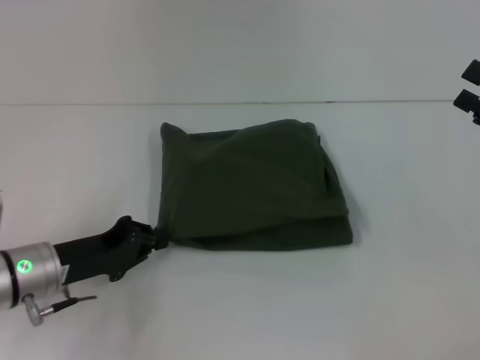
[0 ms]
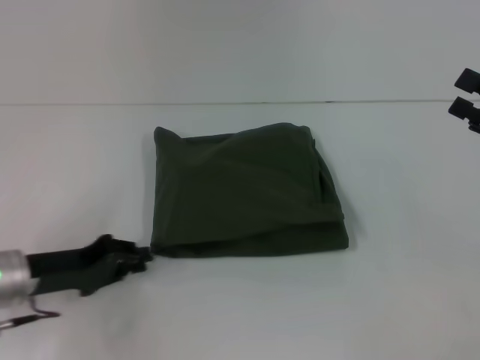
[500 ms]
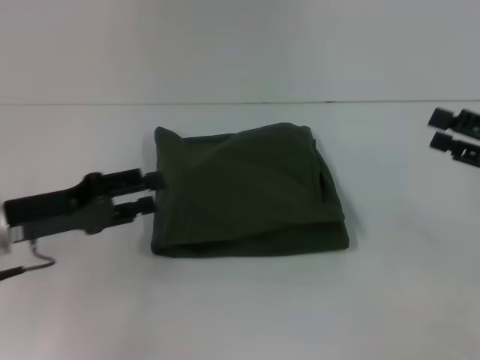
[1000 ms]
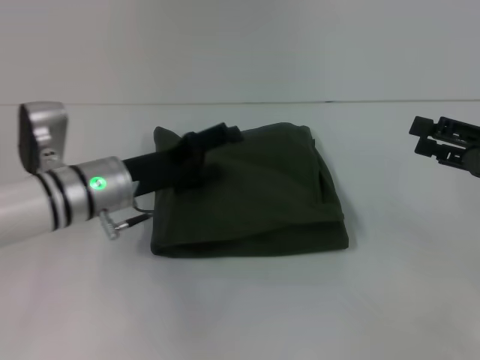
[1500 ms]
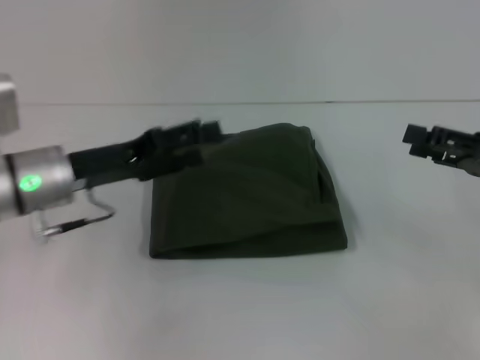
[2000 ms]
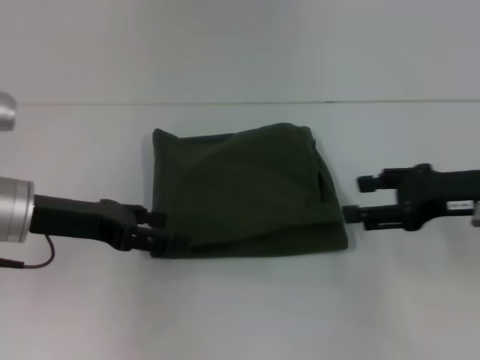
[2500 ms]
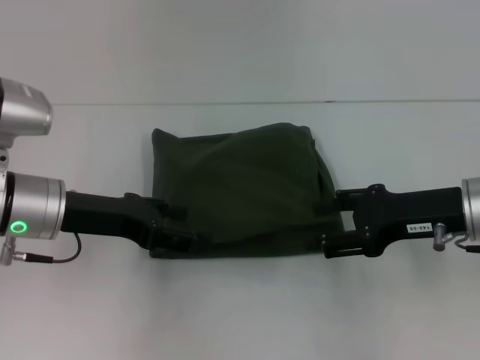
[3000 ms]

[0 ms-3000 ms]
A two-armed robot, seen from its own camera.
0 ms to 1500 ms: The left gripper travels forward and to the right by about 10 cm, and opens.
1500 ms to 3000 ms: The right gripper is displaced to the left by about 10 cm. Meanwhile the left gripper shifts by about 5 cm.

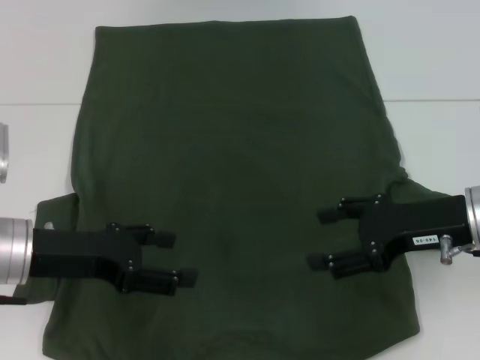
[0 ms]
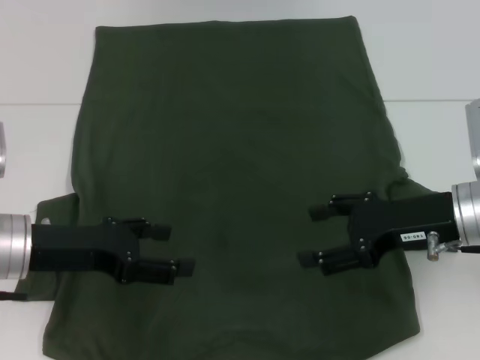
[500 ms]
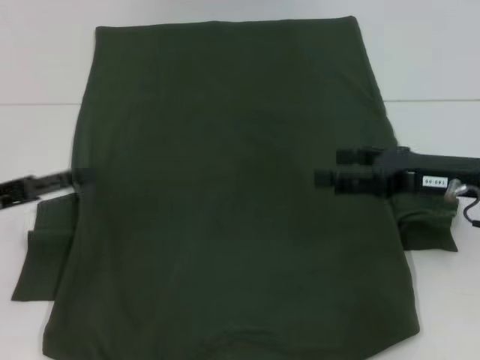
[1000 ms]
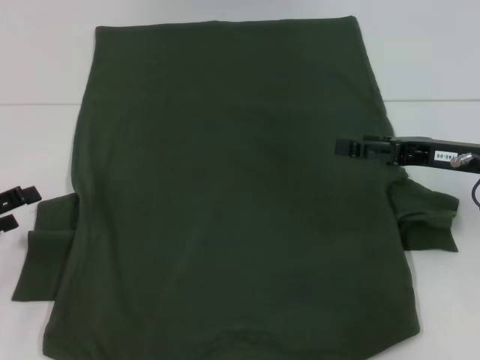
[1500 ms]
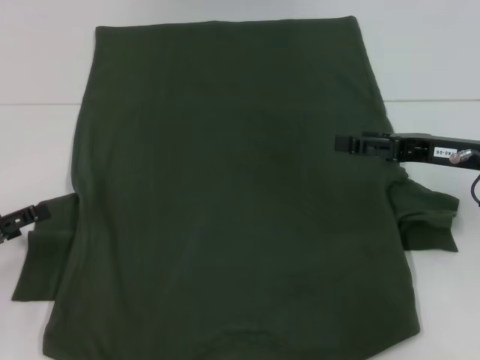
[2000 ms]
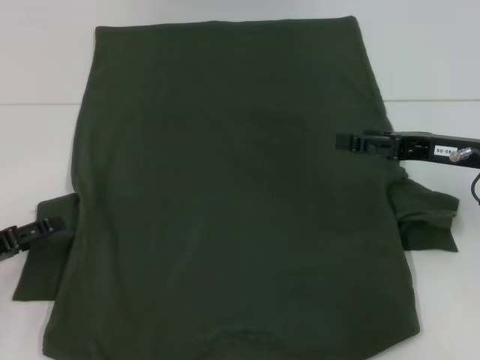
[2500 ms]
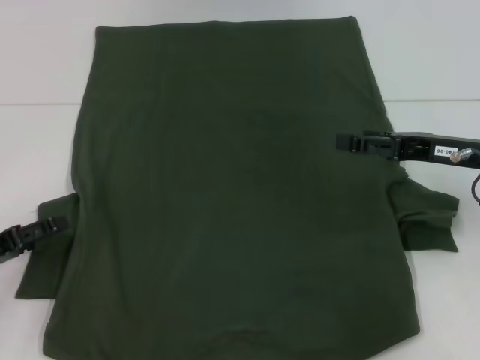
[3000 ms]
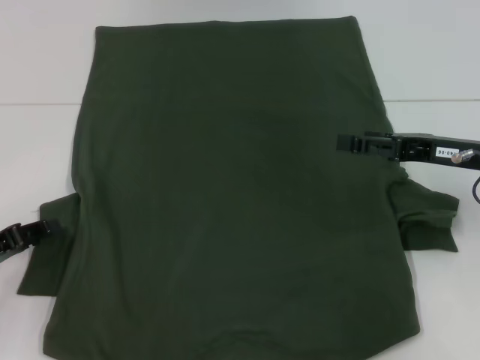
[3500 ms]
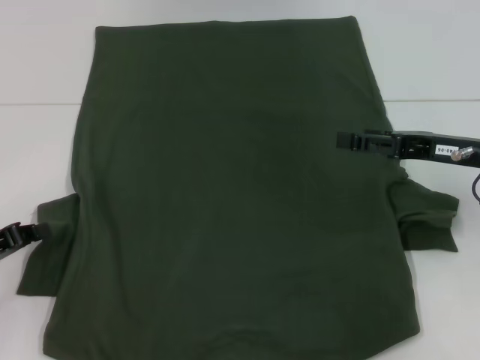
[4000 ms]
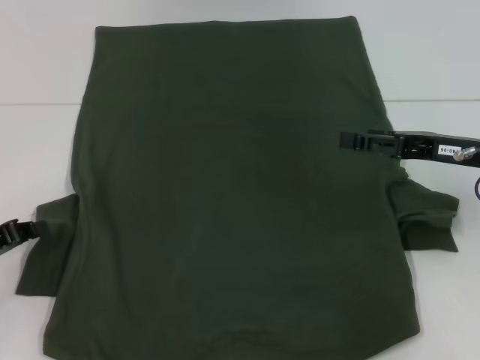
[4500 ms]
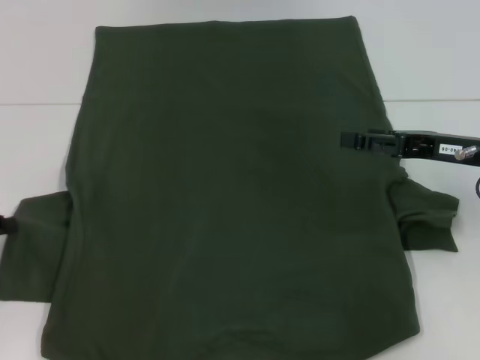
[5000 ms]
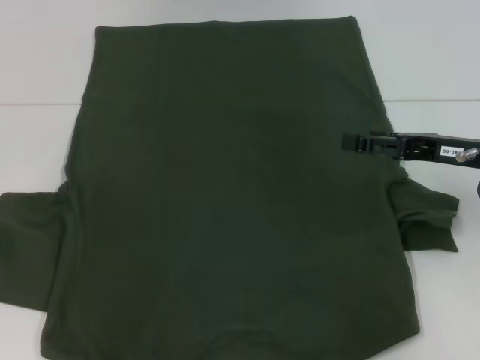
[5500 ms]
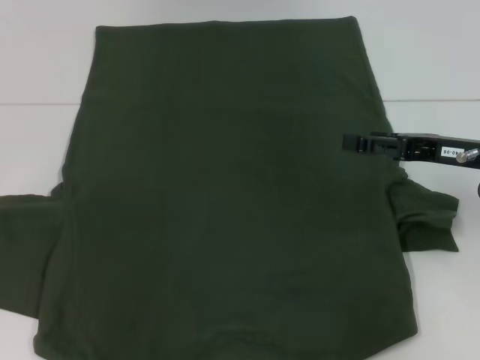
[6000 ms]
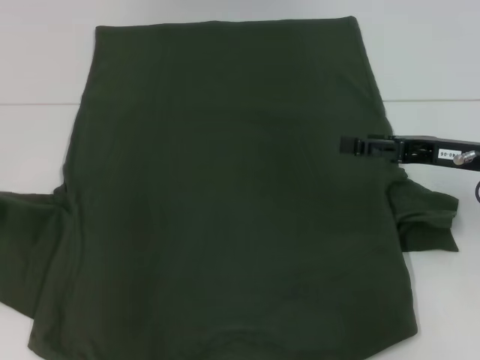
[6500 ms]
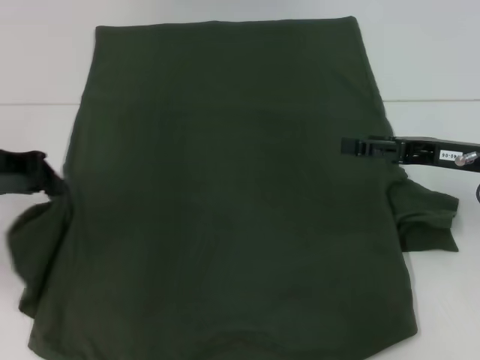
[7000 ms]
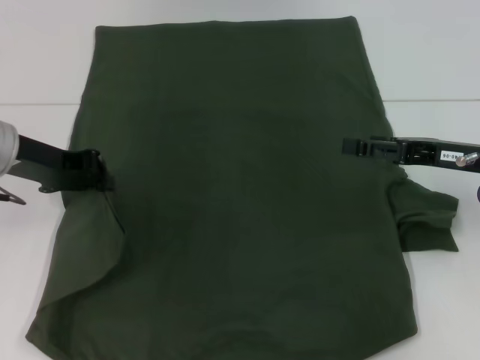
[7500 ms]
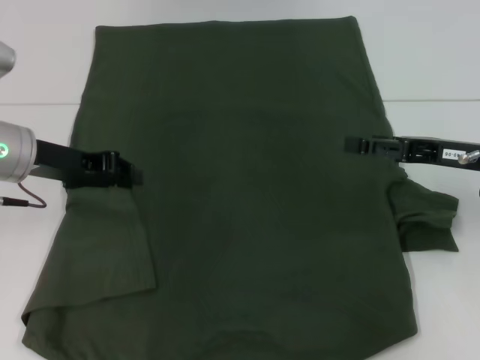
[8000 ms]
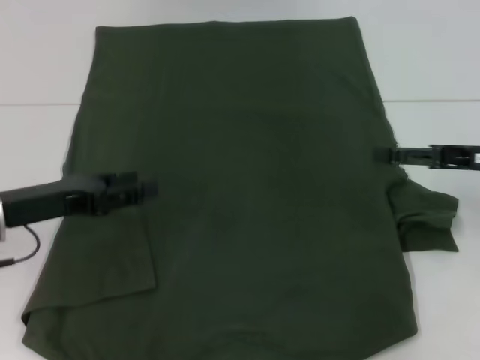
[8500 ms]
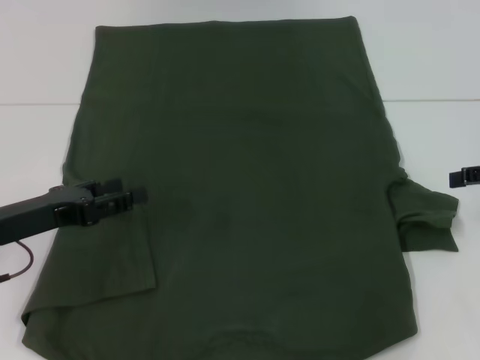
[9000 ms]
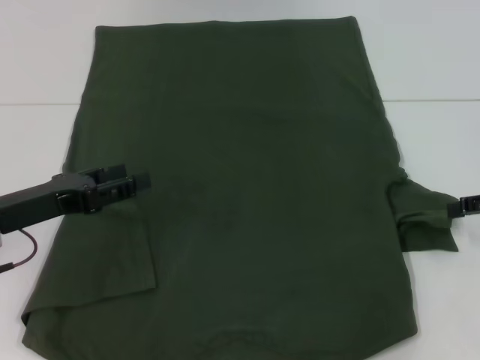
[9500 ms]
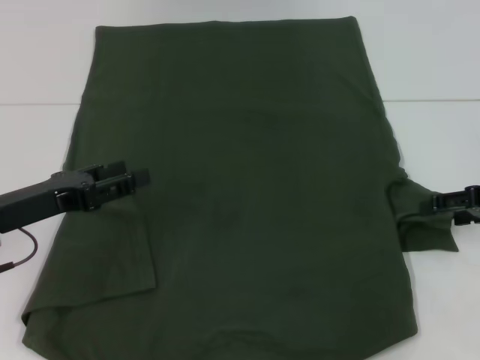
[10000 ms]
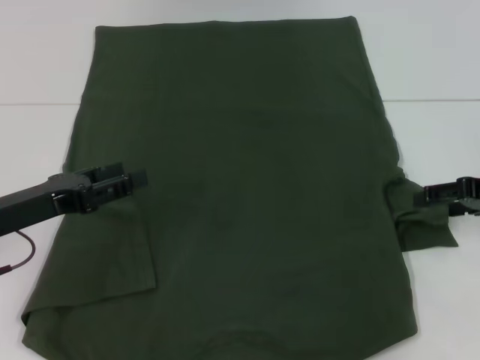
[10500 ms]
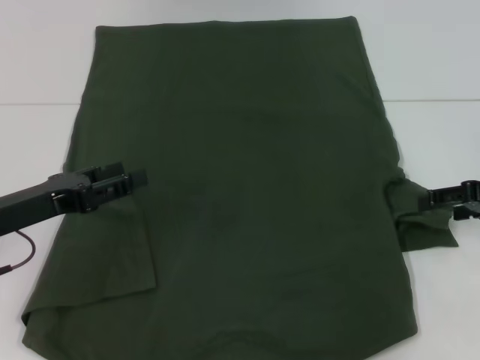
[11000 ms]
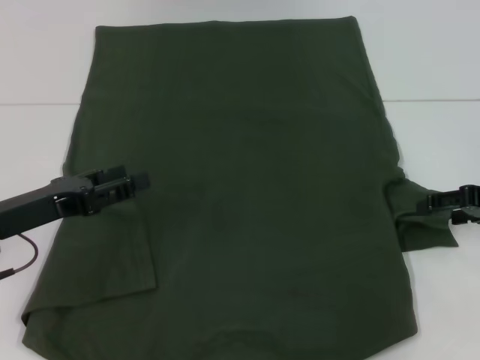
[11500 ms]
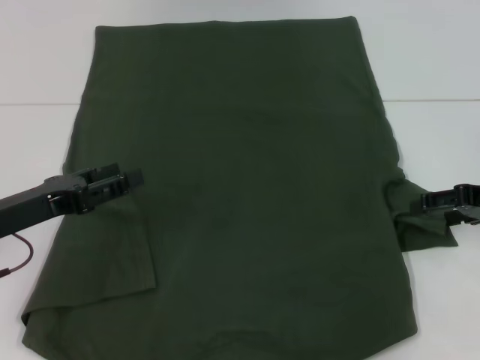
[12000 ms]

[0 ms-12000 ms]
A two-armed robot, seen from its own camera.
Step, 0 ms to 7500 ms: Fold the bottom left sleeve with your left hand.
0 ms to 2000 ms: The left gripper heads to the left and downward, covering some 15 cm.
2000 ms to 4000 ms: The left gripper closes.
4000 ms to 6000 ms: The left gripper heads upward, to the left and forward, covering approximately 10 cm.
6000 ms to 8000 ms: The left gripper is displaced to the right and forward by some 15 cm.
8000 ms to 10000 ms: The left gripper shifts approximately 10 cm backward, and opens, while the right gripper travels to the right by some 5 cm.
10000 ms to 12000 ms: There are only small adjustments of the grippers.

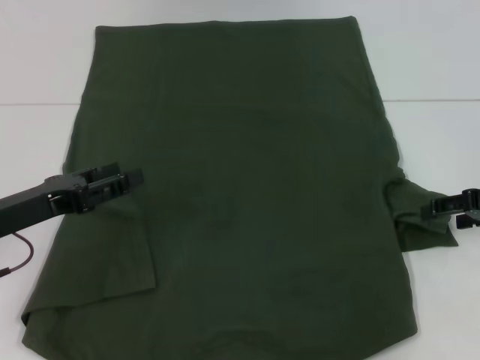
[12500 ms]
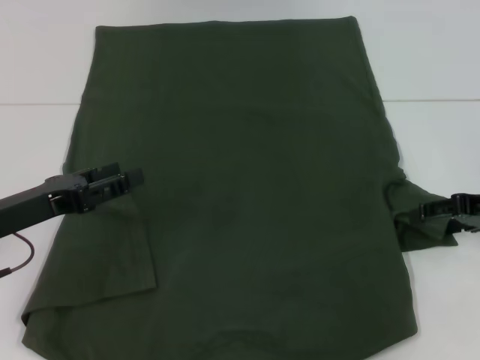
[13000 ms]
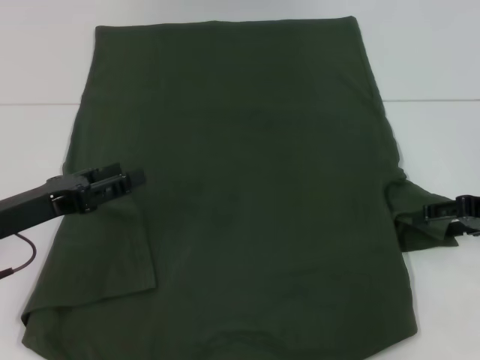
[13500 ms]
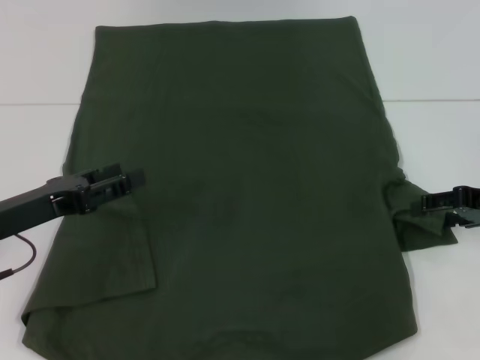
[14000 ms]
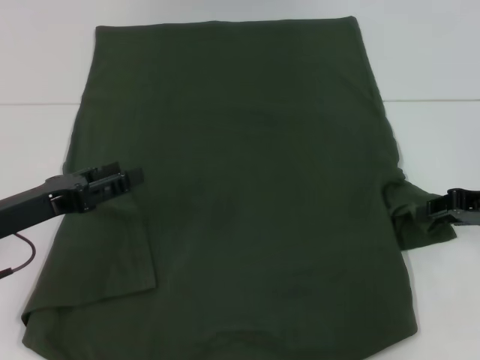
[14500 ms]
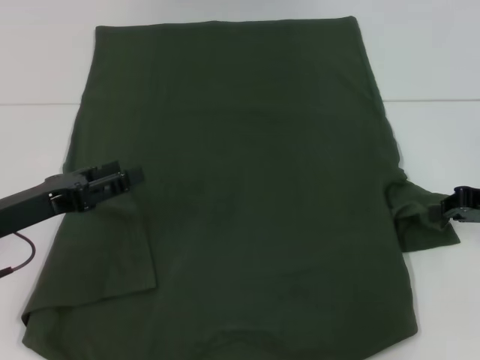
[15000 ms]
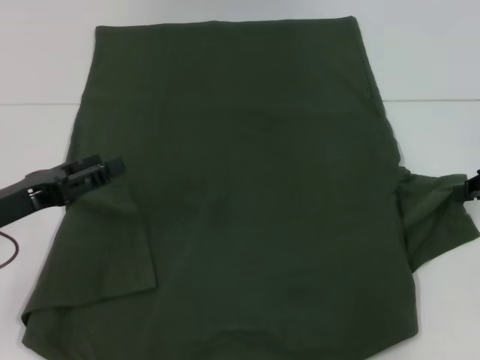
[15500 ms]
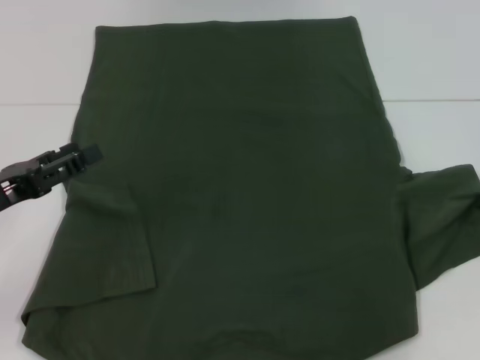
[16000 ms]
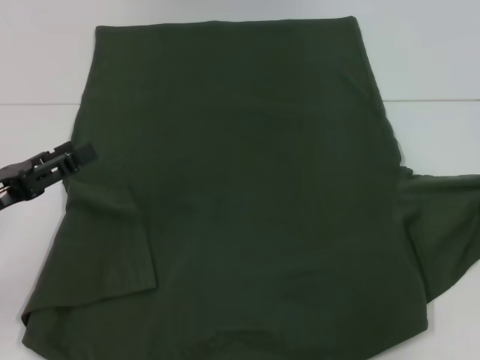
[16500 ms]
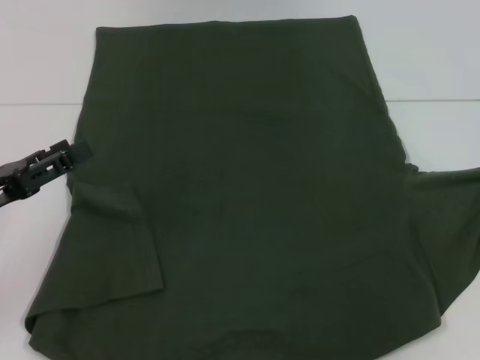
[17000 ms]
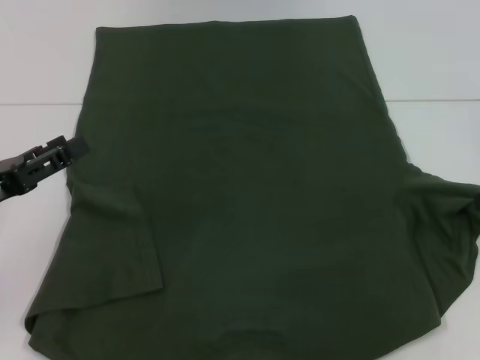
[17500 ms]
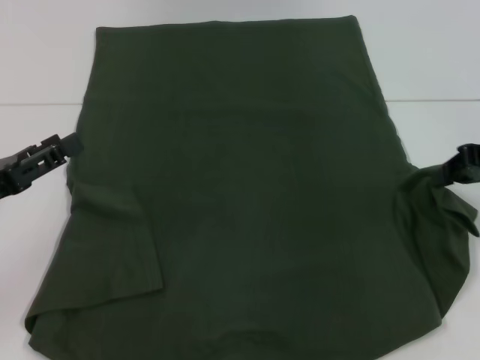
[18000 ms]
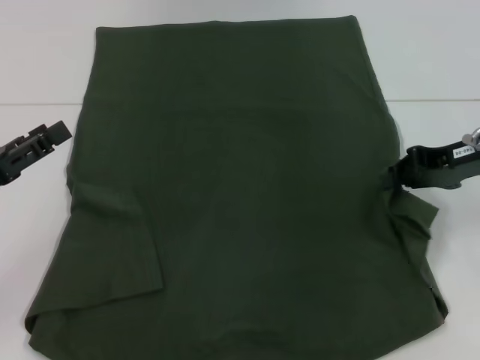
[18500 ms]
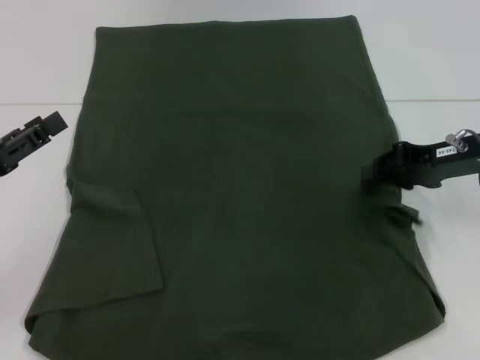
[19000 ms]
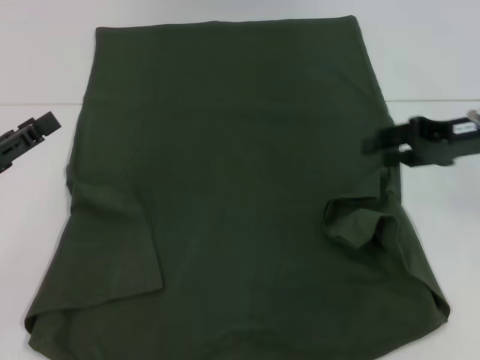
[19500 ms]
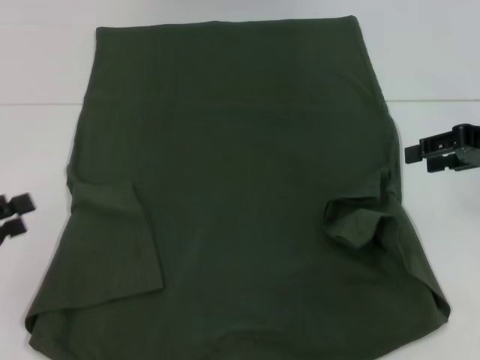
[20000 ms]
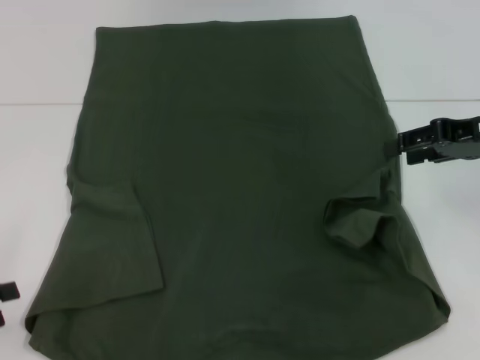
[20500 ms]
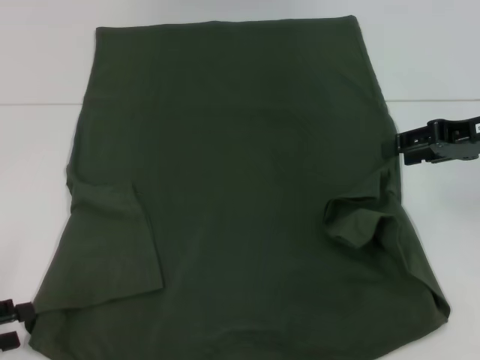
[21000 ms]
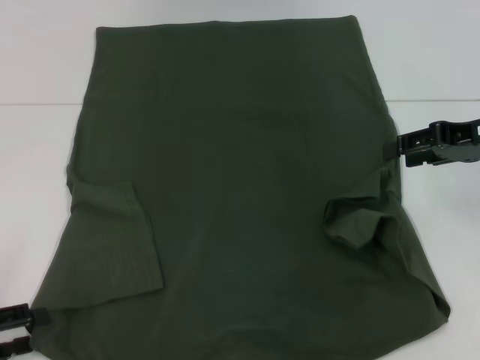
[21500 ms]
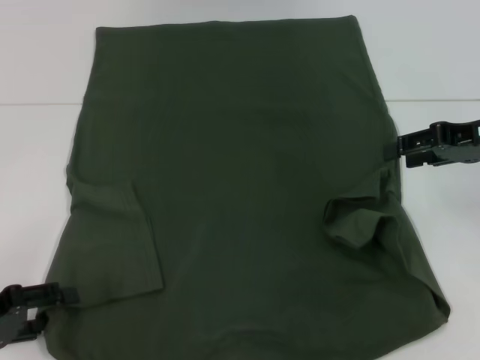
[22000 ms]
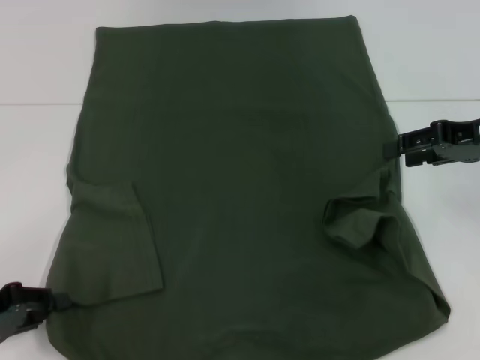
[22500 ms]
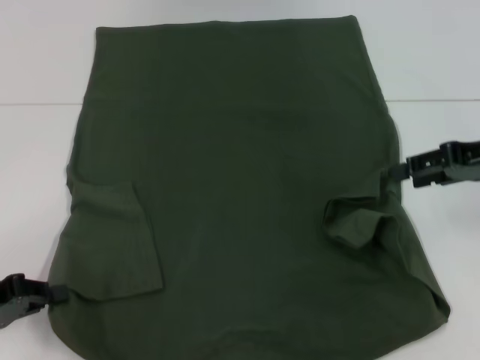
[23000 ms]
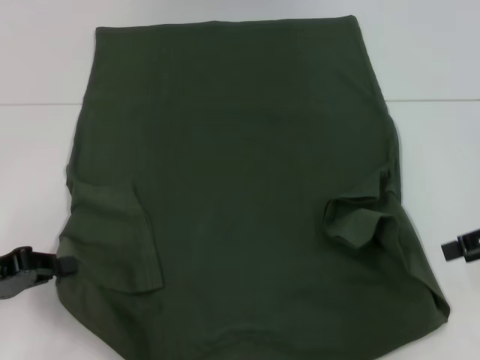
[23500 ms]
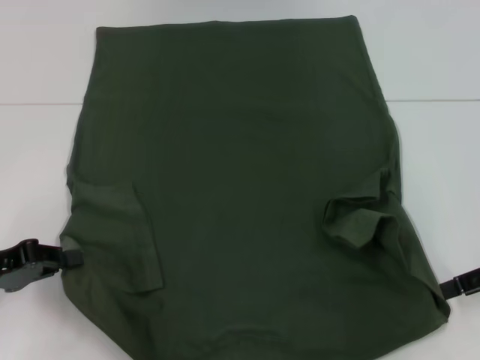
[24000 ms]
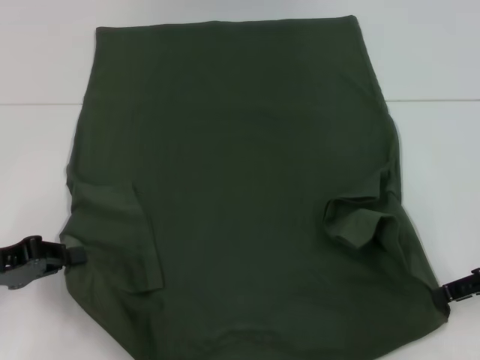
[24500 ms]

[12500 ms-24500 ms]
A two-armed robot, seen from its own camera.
Step, 12500 ms to 19500 ms: Fold the bottom right sleeve with your right hand.
Step, 20000 ms to 22500 ms: Grab the bottom left corner with your left hand.
12500 ms to 14500 ms: The right gripper closes.
14500 ms to 16500 ms: The right gripper goes roughly 5 cm to the right, and closes up.
16500 ms to 18500 ms: The right gripper shifts approximately 10 cm to the left.
18500 ms to 20500 ms: The left gripper travels to the left and backward by some 10 cm. Meanwhile the right gripper opens.
20500 ms to 22500 ms: The left gripper changes place by some 5 cm, and closes.
22500 ms to 24500 ms: The right gripper is displaced backward and downward by approximately 10 cm, while the left gripper closes.
